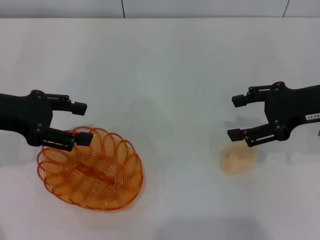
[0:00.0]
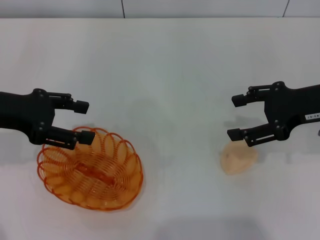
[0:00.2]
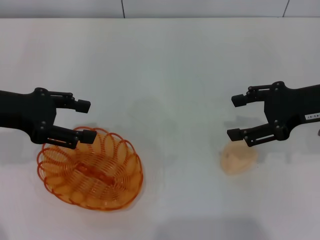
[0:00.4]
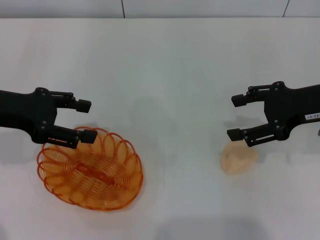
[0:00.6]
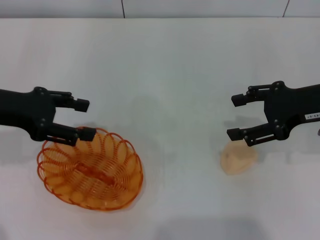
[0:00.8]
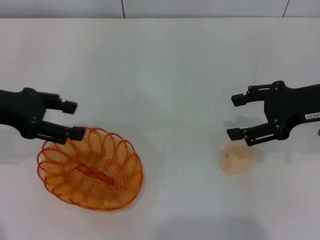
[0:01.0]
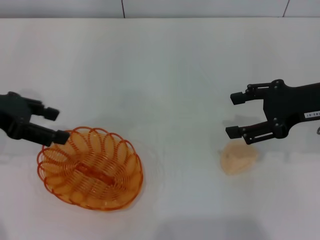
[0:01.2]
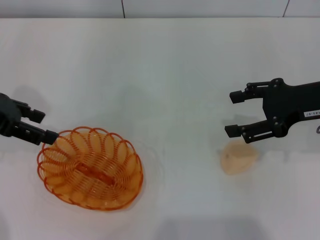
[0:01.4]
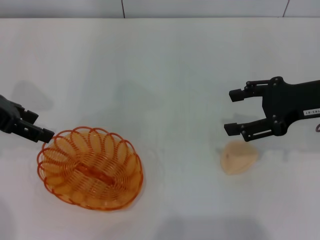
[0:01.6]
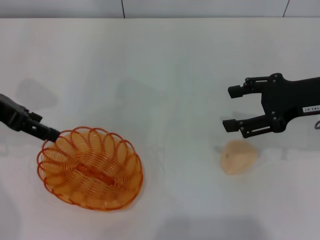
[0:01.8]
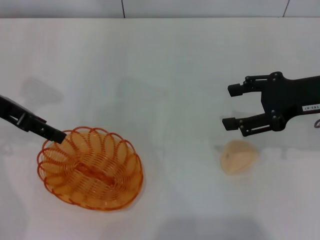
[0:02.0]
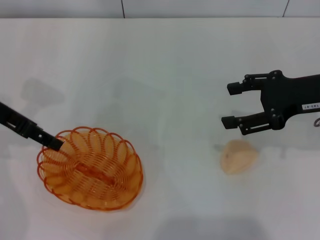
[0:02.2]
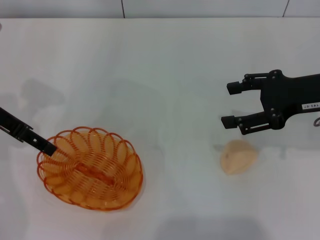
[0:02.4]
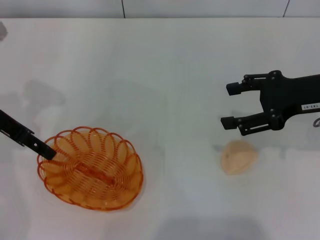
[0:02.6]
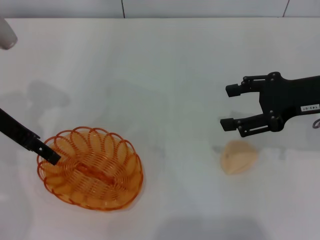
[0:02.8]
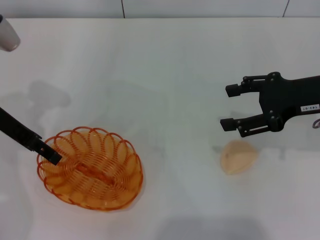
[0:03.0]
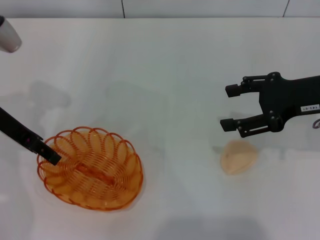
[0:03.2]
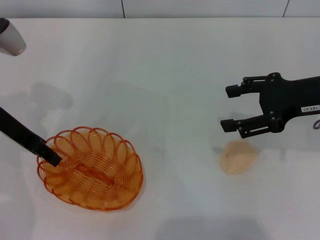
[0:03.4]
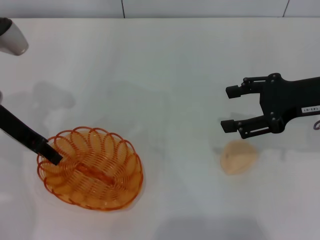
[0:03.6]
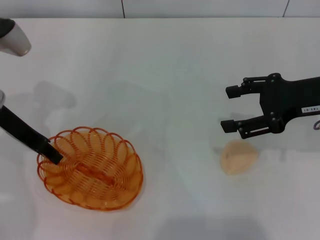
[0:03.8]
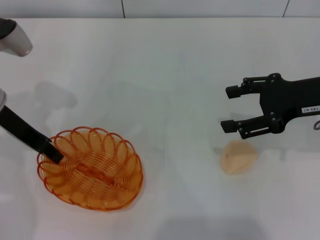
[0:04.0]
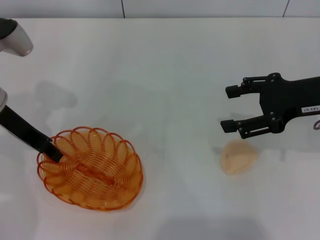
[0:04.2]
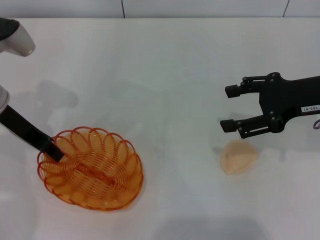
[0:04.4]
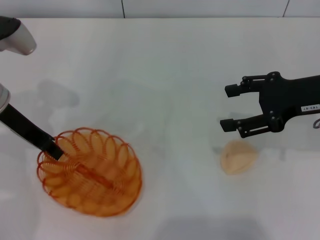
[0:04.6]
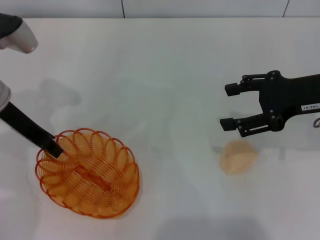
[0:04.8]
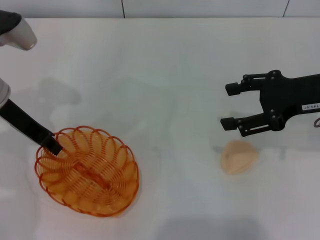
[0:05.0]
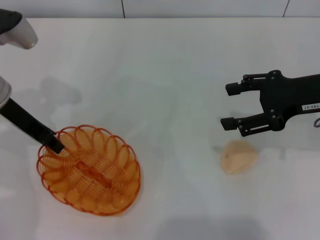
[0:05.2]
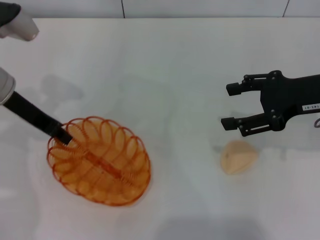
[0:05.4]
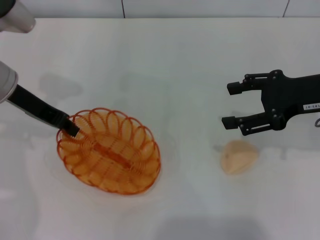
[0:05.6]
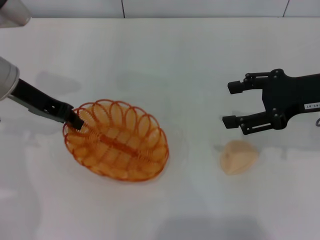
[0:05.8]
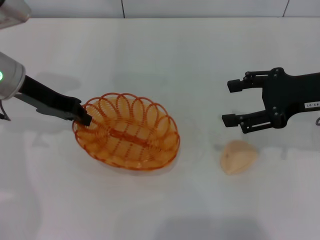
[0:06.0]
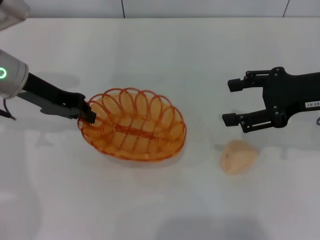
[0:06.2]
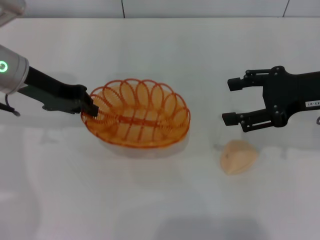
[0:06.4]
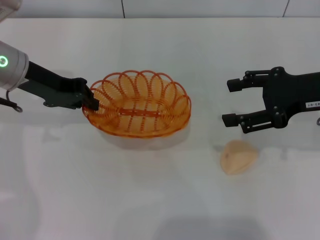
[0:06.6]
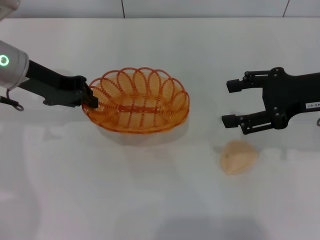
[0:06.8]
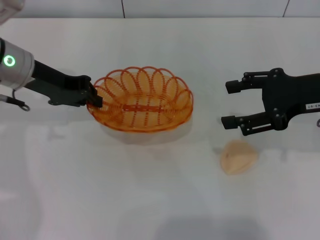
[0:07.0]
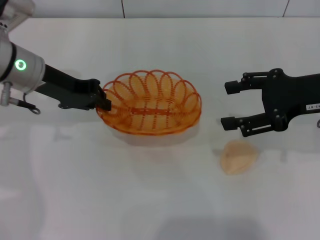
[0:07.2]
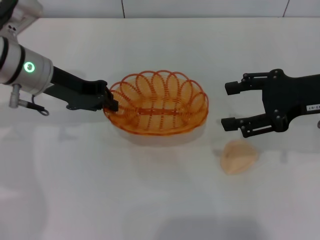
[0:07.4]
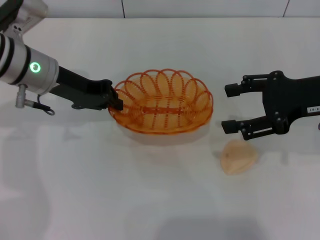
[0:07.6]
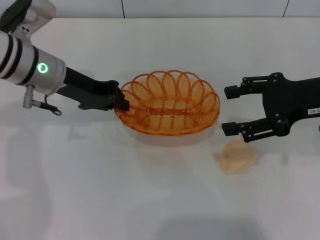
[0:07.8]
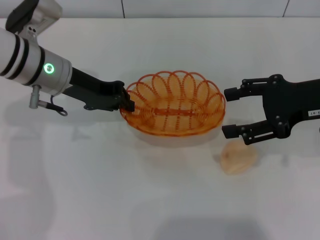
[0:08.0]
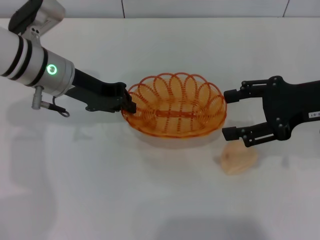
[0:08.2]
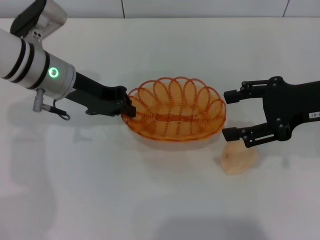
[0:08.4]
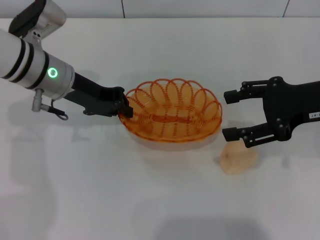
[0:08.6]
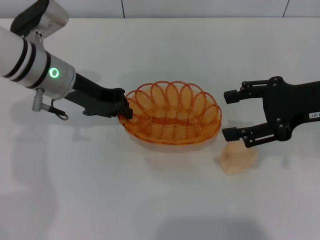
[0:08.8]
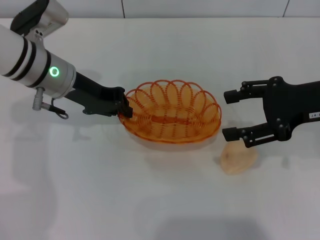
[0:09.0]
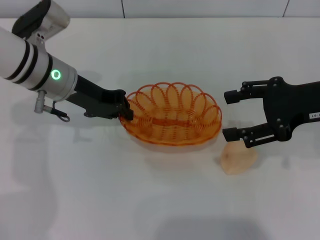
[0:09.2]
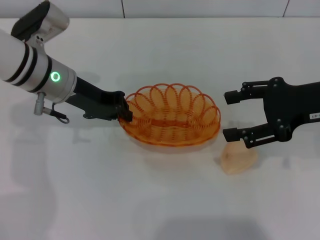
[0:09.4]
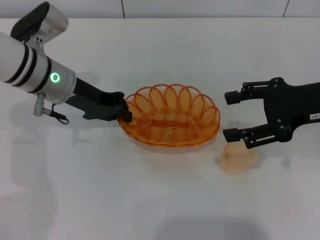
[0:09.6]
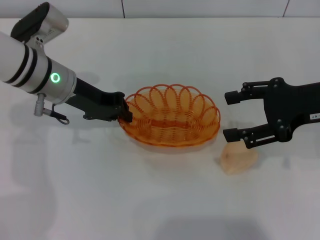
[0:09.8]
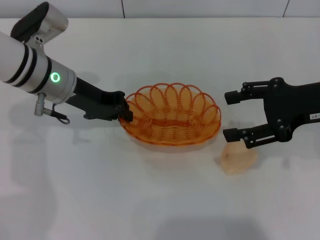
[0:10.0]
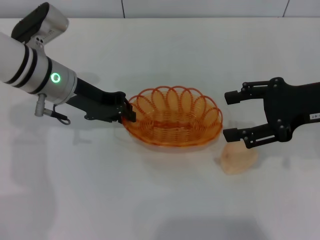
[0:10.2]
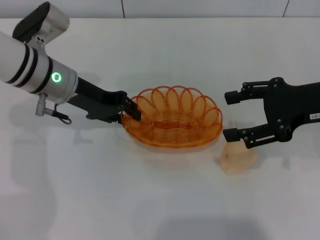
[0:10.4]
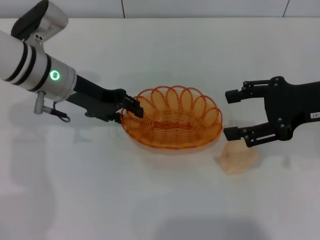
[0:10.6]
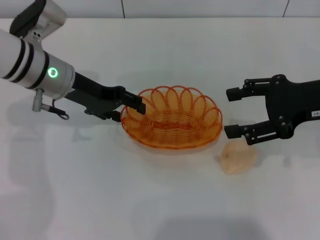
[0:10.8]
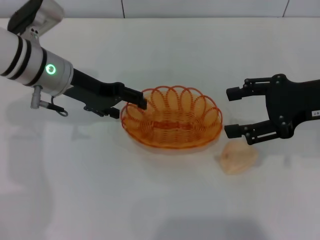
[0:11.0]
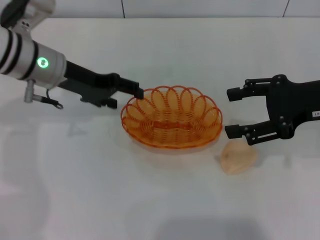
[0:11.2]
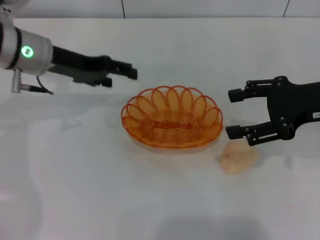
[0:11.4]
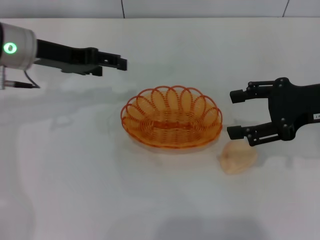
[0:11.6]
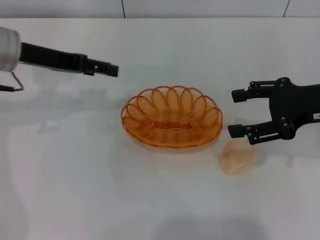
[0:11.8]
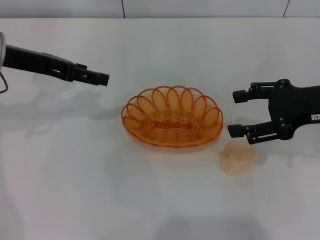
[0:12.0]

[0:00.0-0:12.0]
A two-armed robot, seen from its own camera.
Step, 0:00.0 to 0:06.4: Pick up the basket with the left gripper.
Step, 0:06.6 to 0:11.4: Place the basket in the center of view with the left gripper.
0:01.6 to 0:03.0: The left gripper moves some 5 cm.
0:03.0 to 0:04.4: The left gripper closes its fingers.
0:07.6 to 0:09.0: There are only small adjustments of the grippers.
0:09.0 to 0:10.4: Neither gripper changes place.
0:10.4 to 0:12.0: The left gripper moves to the left and upward, approximately 10 cm, and opens.

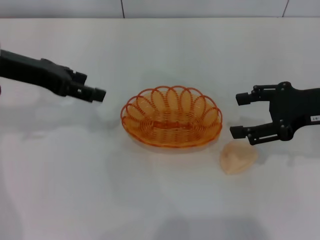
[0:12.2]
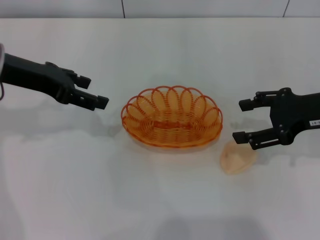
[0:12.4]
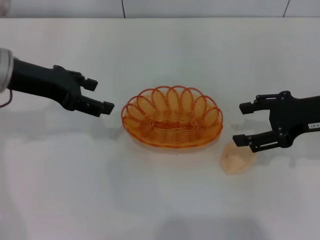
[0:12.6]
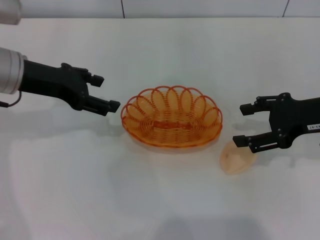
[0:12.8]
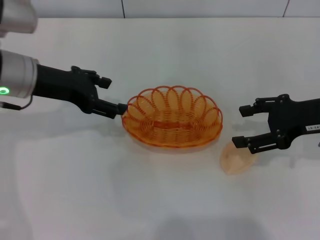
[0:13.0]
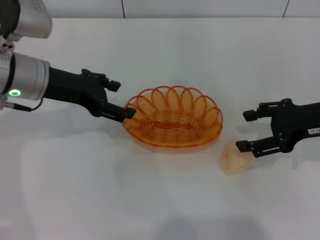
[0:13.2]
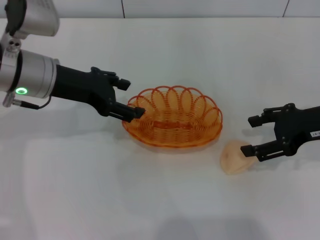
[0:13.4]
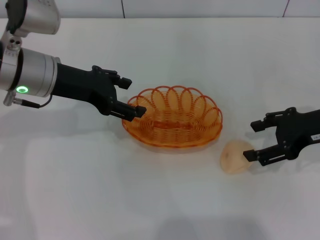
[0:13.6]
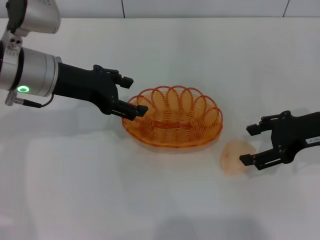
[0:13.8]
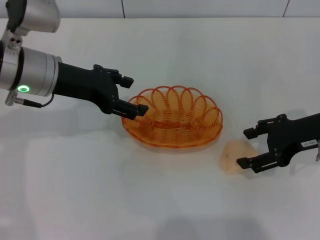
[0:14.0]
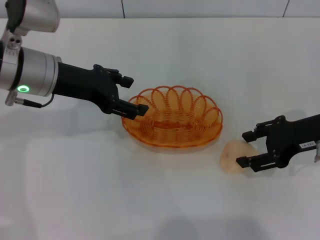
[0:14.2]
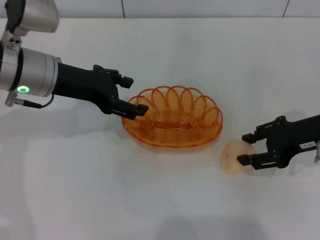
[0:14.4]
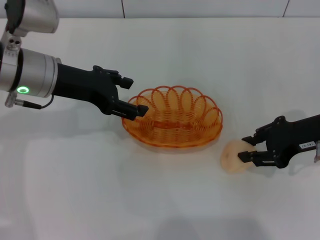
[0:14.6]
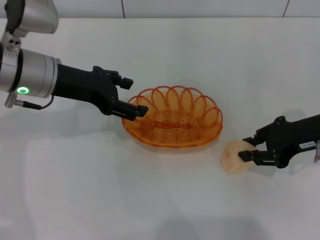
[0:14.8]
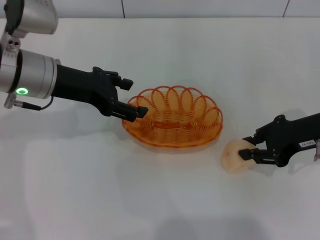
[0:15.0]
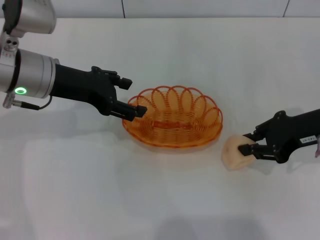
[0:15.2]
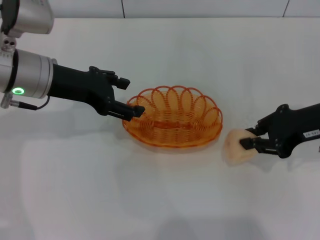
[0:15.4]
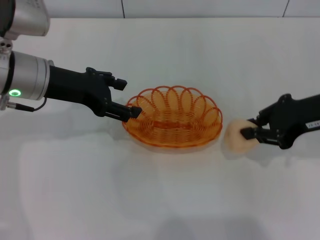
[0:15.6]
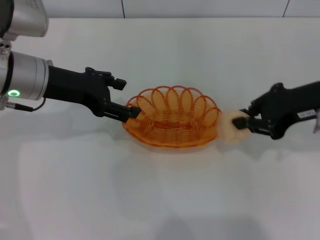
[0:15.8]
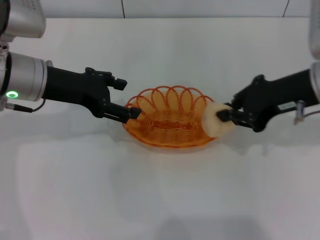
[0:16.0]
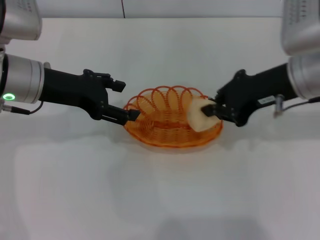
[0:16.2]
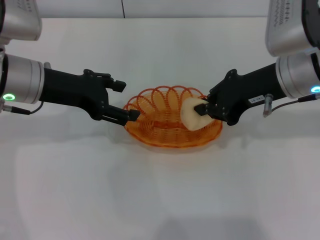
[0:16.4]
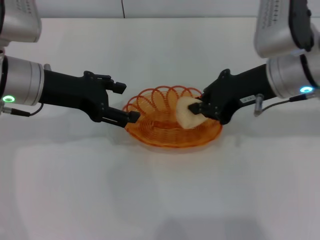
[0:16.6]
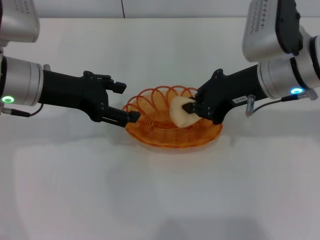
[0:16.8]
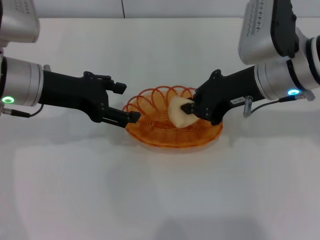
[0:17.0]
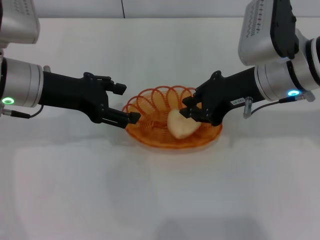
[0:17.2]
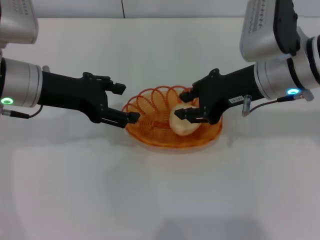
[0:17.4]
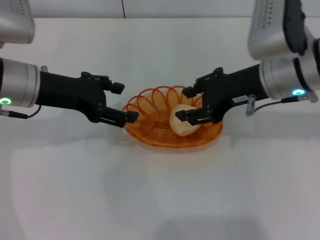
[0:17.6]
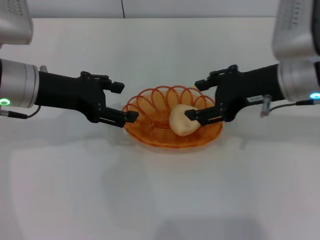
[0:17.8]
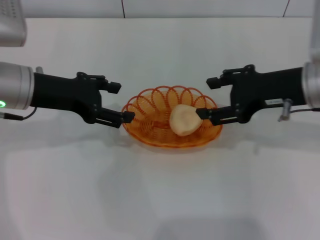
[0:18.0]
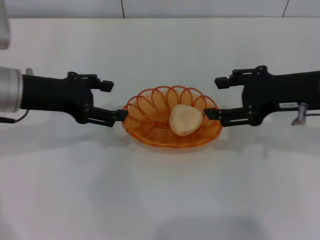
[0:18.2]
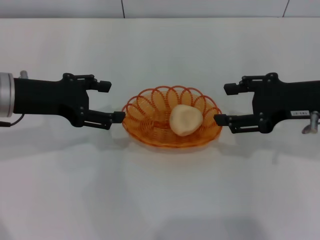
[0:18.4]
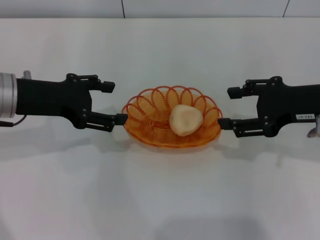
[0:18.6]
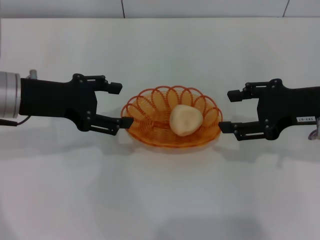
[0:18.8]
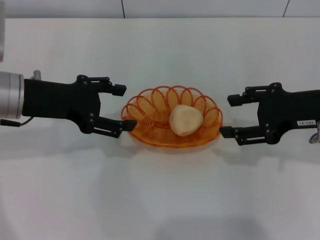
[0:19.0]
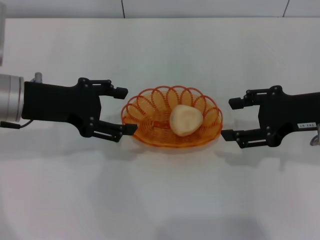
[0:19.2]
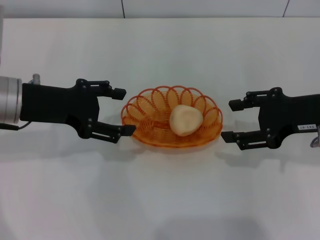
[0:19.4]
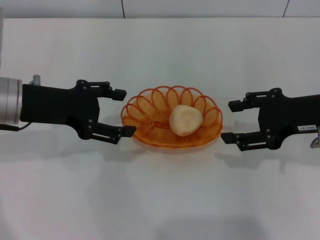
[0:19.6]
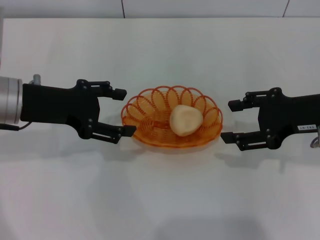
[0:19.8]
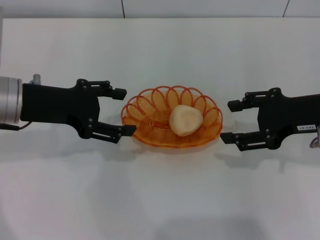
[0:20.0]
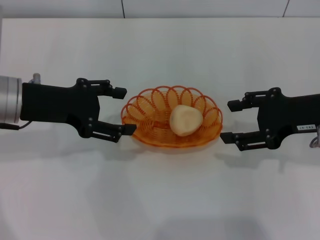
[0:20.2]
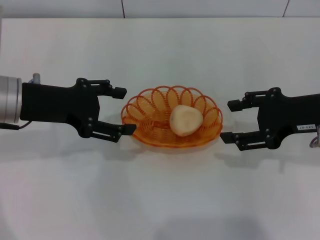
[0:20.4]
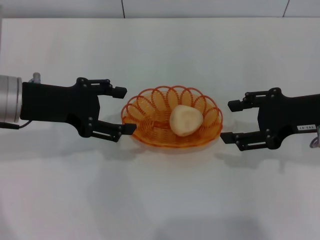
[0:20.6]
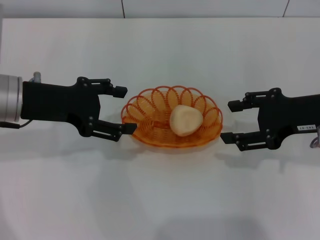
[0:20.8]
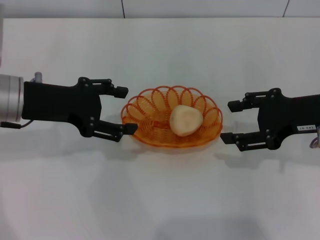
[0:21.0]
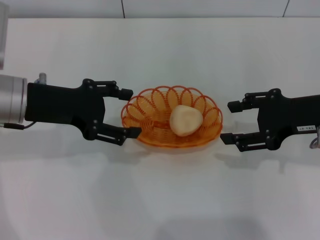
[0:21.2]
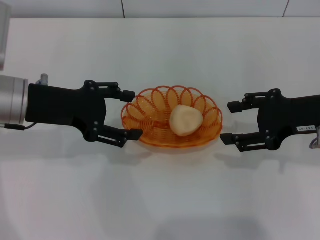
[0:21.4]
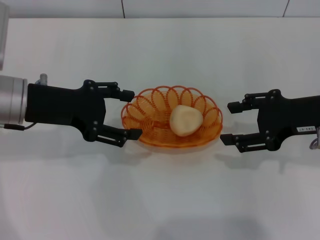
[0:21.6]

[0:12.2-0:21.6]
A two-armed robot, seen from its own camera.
Step, 0:12.2 to 0:15.6: Pick up the egg yolk pastry with the right gripper.
Step, 0:15.8 to 0:18.2: Place the egg yolk pastry into the basket with the right gripper.
0:12.2 to 0:13.8: The left gripper moves to the right, roughly 5 cm.
0:13.8 to 0:15.4: The right gripper closes up.
0:15.4 to 0:17.0: The right gripper travels to the left by some 10 cm.
0:17.0 to 0:18.4: The right gripper travels to the right by some 10 cm, and opens its fingers.
0:18.4 to 0:20.0: The grippers make only small movements.
0:20.0 to 0:21.6: Both grippers stay about where they are.
